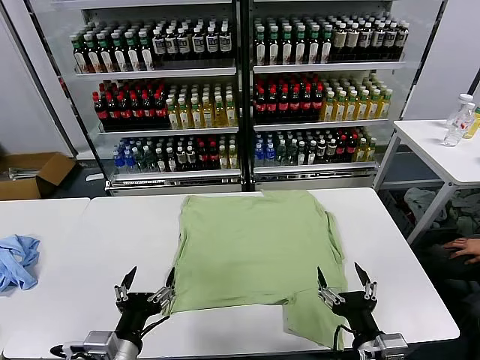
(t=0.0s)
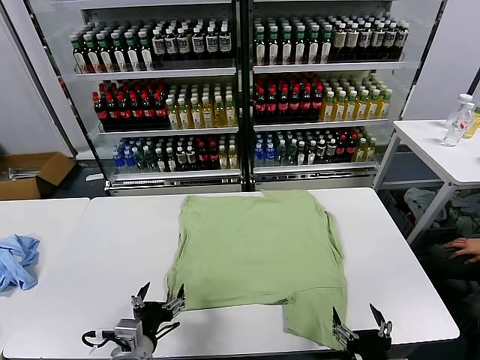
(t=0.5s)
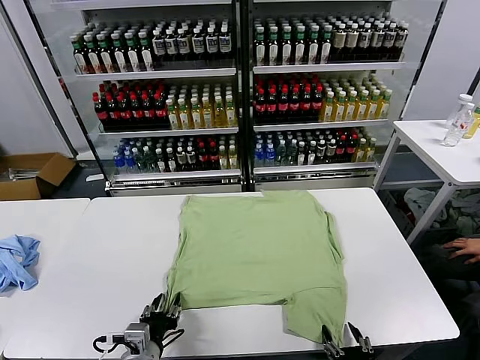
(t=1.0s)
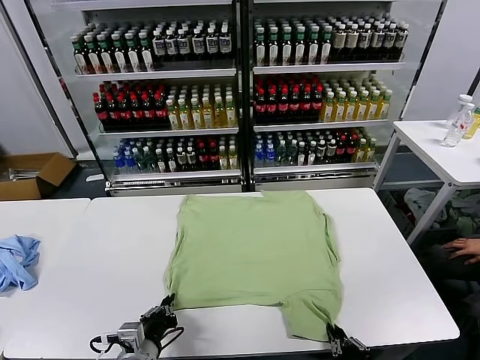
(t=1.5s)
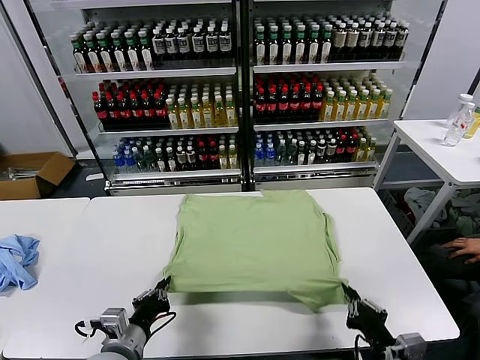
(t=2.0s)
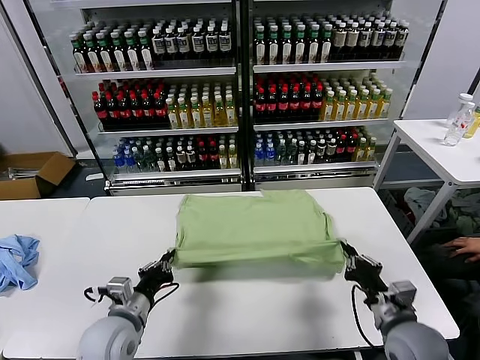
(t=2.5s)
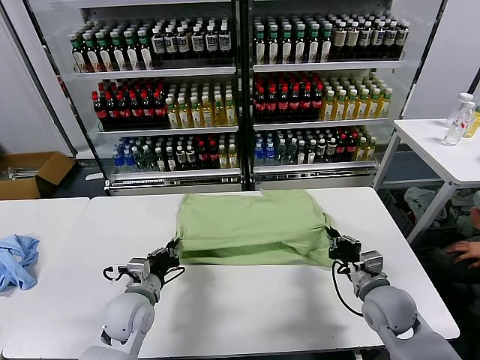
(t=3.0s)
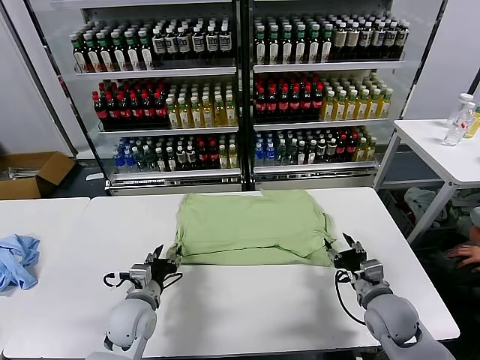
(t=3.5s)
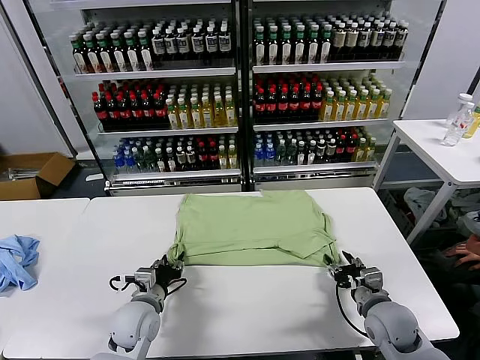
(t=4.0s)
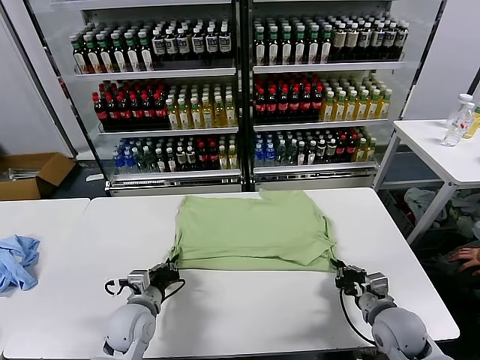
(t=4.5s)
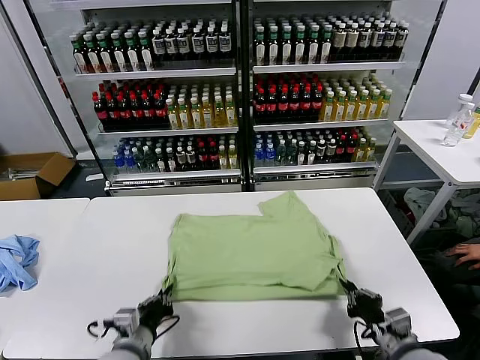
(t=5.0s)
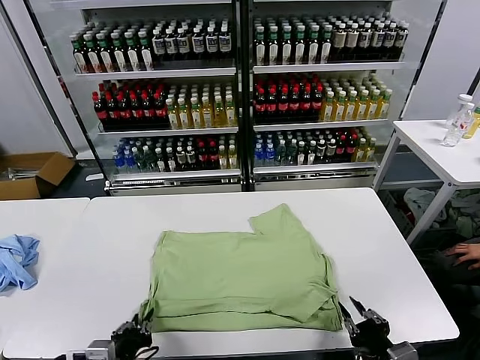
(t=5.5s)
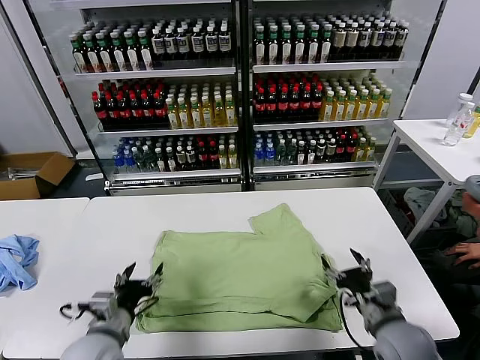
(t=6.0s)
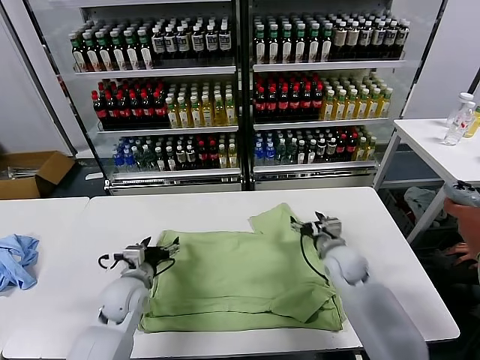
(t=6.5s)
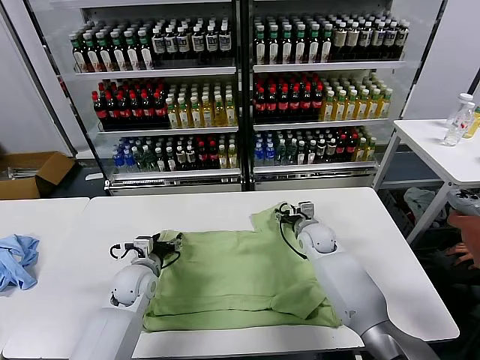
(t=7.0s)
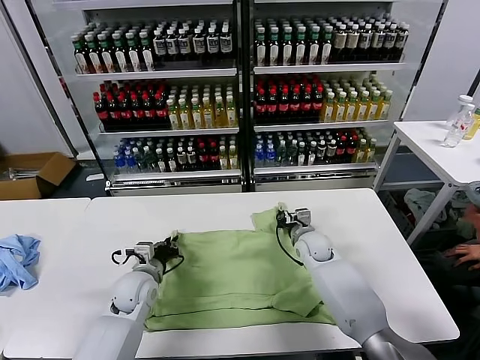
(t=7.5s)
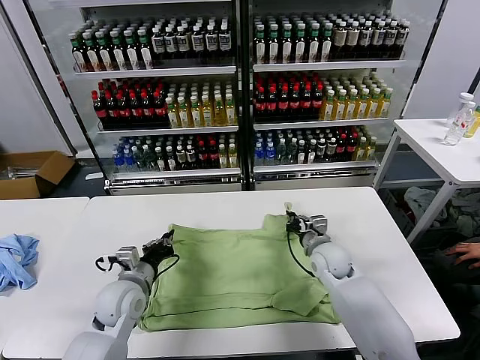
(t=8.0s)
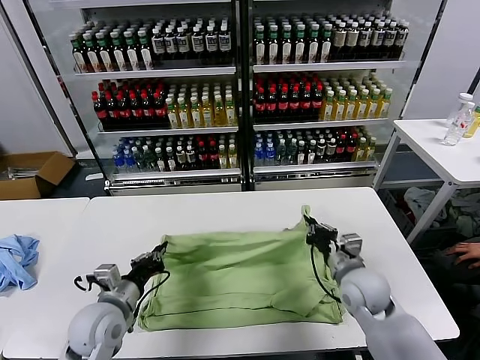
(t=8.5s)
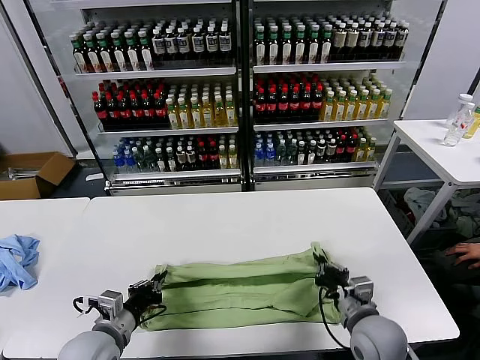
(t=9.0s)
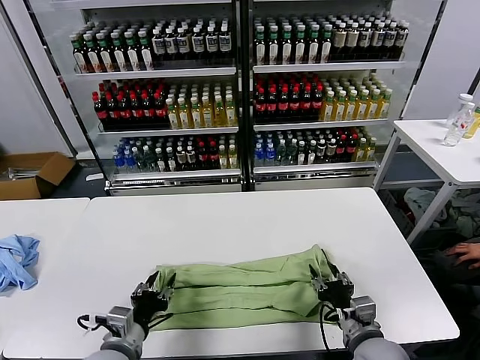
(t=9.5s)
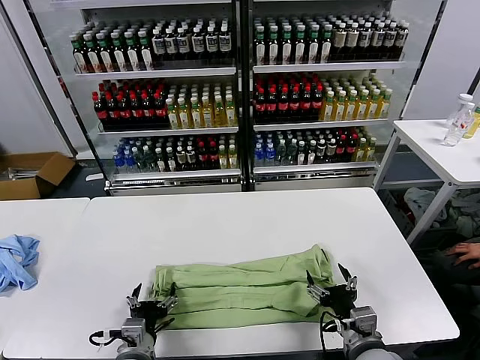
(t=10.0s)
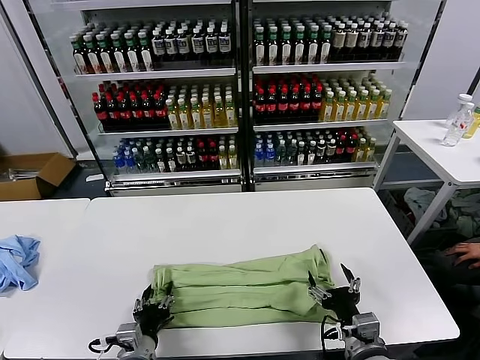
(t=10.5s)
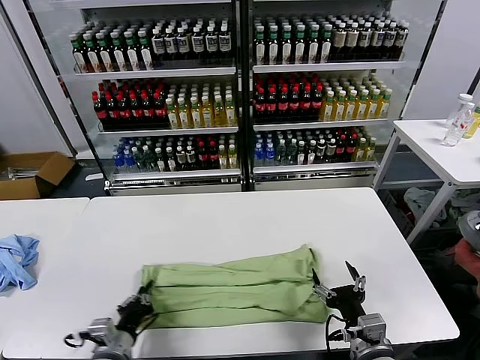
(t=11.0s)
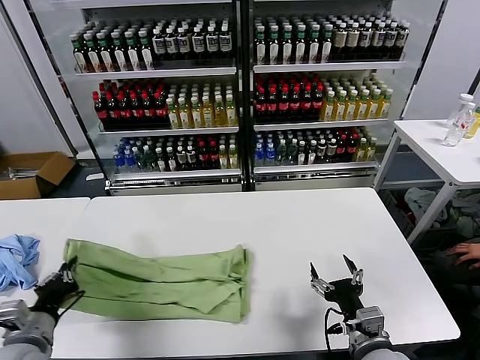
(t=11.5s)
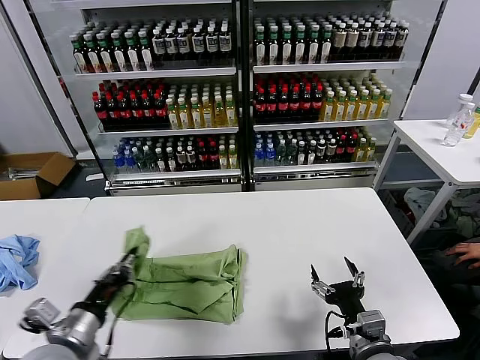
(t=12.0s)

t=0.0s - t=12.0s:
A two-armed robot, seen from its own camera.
Task of the whole recording: fold and organize the clothes.
Step, t=0.0s - t=1.5s: use both grippers simultaneously to clamp the lower edge of the clothing fabric.
Step, t=2.0s - t=3.0s: use both grippers to drag the lower edge of the fabric forward and fold it over the upper edge.
Step, t=3.5s - t=5.5s: Drag the clothes downward with both gripper.
Step, t=6.0s - t=7.5s: use both grippers simultaneously to clamp the upper edge of the clothing fabric.
Step, t=8.0s - t=9.0s: use both grippers to drag the upper edge of the fabric backward and fold it over the lower edge.
Step, t=10.0s - t=10.5s: use the left gripper to clamp the left edge of the fabric.
t=2.0s - t=4.0s: Both grippers move forward and downward, about 15 cm. The left gripper opens its fingers. Meanwhile the right gripper opens.
t=4.0s - t=6.0s: The right gripper reaches some 15 cm backward, then returns, and opens. Meanwhile the left gripper heads backward and upward, covering about 10 cm, and closes, then reopens.
t=6.0s - t=8.0s: The grippers both shift forward by about 15 cm. The left gripper closes its fingers, while the right gripper closes its fingers.
t=8.0s - t=10.0s: The right gripper is displaced backward by some 25 cm, and opens, while the left gripper shifts approximately 15 cm backward, and opens its fingers.
t=10.0s - t=12.0s: The left gripper heads upward and to the left, covering approximately 15 cm, and closes up.

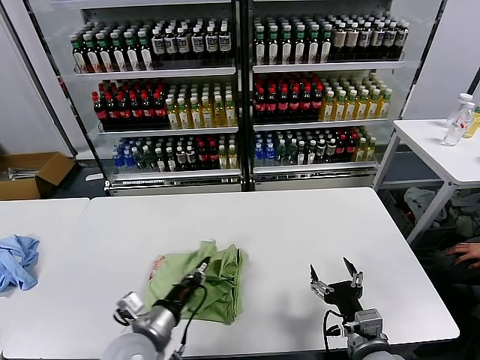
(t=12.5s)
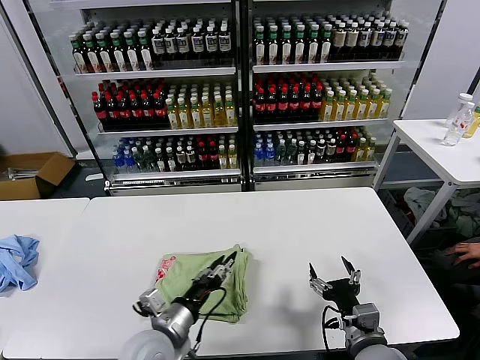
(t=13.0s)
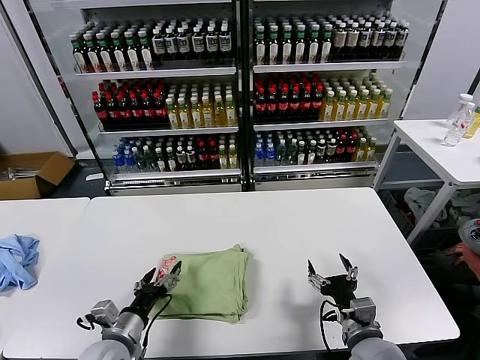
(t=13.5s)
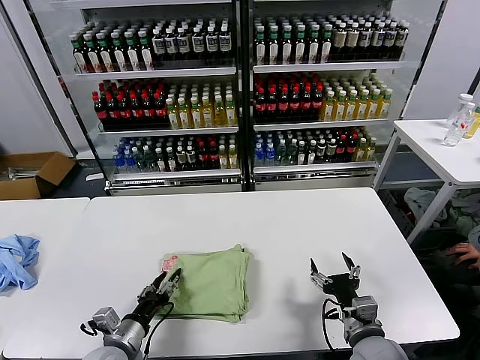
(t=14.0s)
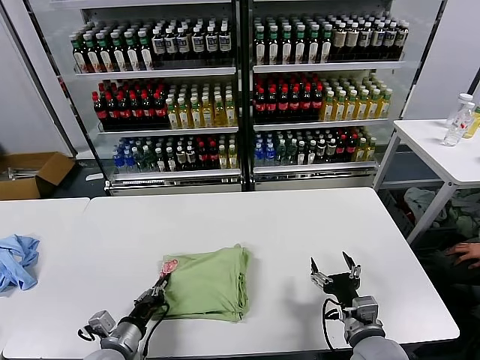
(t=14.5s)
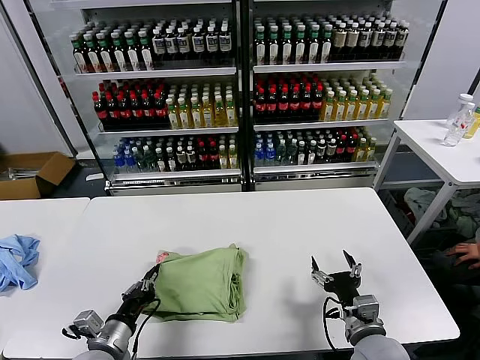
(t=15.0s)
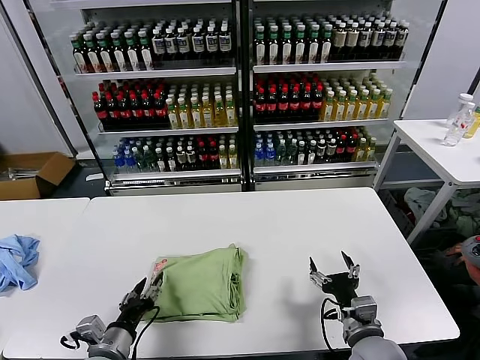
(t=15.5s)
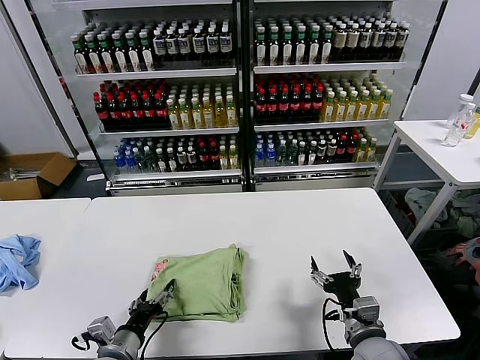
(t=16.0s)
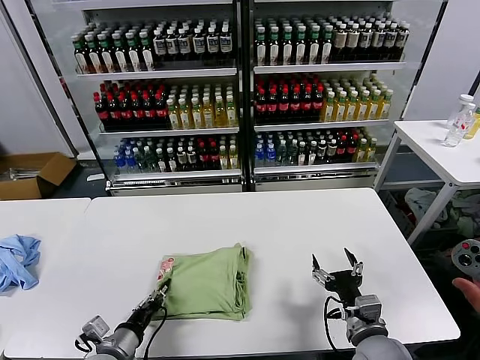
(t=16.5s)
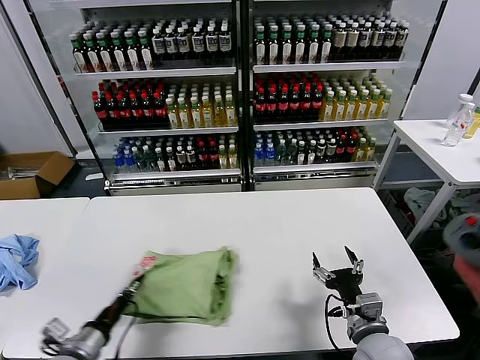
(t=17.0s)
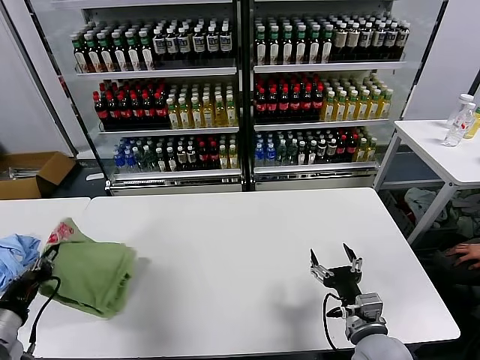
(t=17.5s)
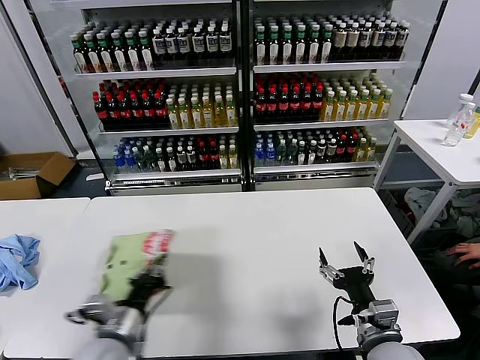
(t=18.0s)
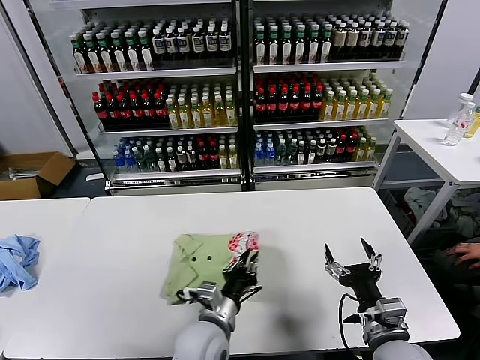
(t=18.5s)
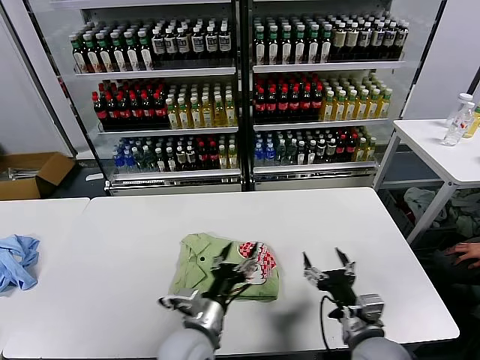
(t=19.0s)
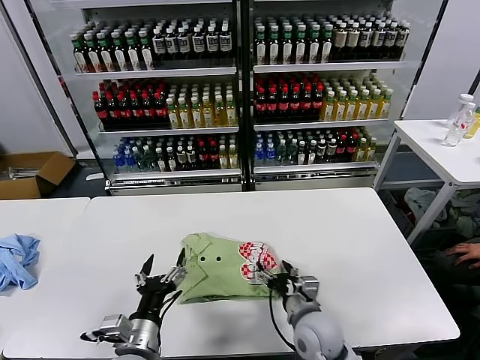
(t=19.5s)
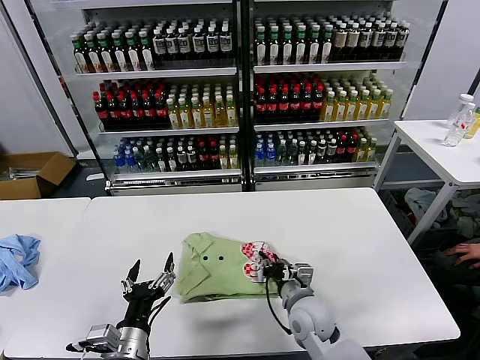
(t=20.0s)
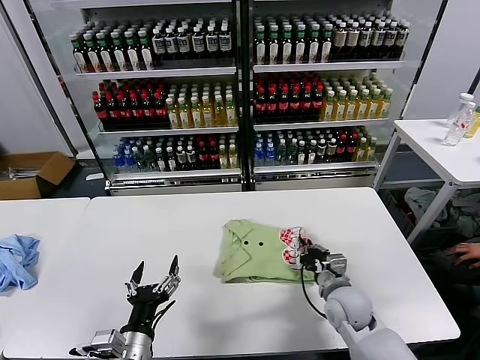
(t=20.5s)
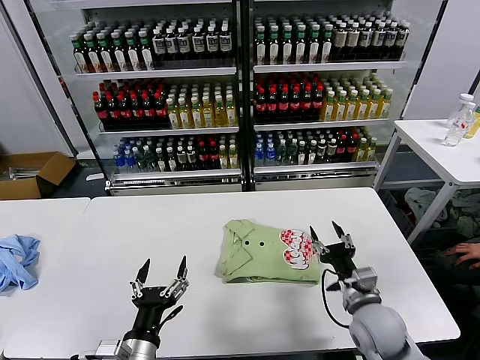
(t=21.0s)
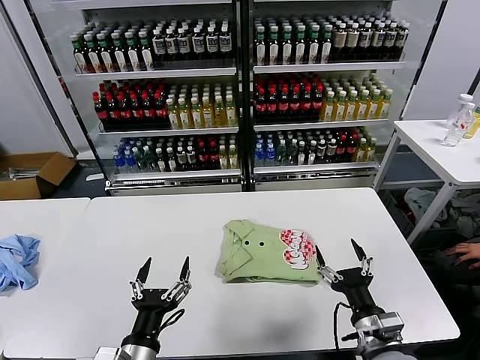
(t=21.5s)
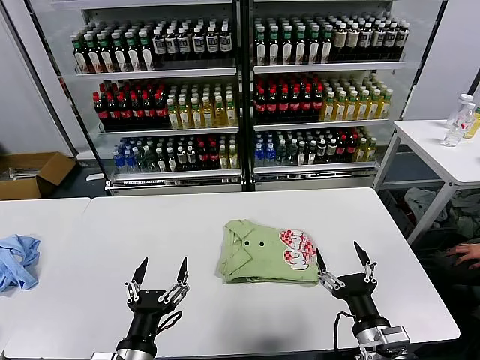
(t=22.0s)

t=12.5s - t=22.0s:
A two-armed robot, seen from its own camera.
Task of the whole recording: fold and organize the clothes.
Step, t=13.0s - t=18.5s: Flip the folded clothes over with left gripper.
Step, t=19.0s - t=20.5s: Drag the clothes to the center of the table.
t=12.5s - t=14.5s: The left gripper is displaced downward and to the left by approximately 10 cm, and opens, then closes again.
t=14.5s - t=16.5s: The left gripper opens, then closes again.
t=16.5s - t=18.0s: The left gripper shifts approximately 10 cm upward, and travels to the left and back again, about 15 cm each way.
t=18.0s - t=20.0s: The left gripper goes to the right and returns, some 20 cm each way, and opens up. Meanwhile the right gripper travels forward, to the left and downward by roughly 20 cm, and closes.
t=20.0s - t=22.0s: The right gripper is displaced backward, to the right and upward by about 20 cm, and opens up. The left gripper shifts by roughly 5 cm.

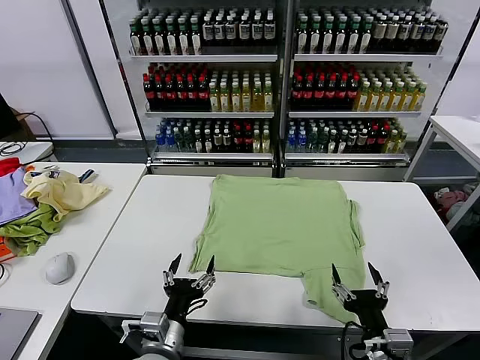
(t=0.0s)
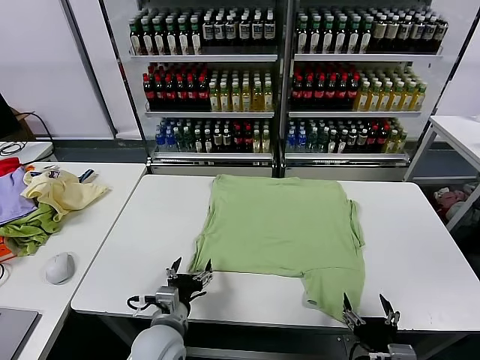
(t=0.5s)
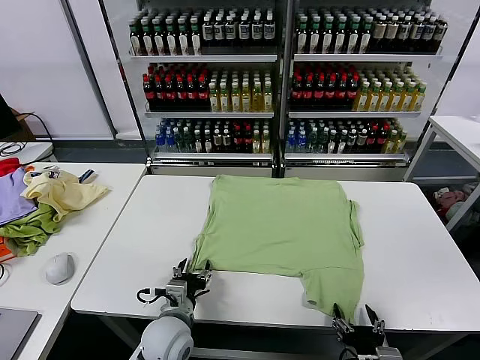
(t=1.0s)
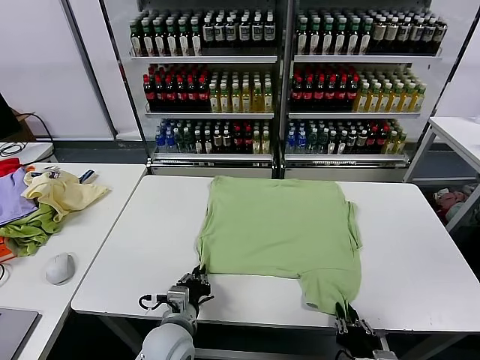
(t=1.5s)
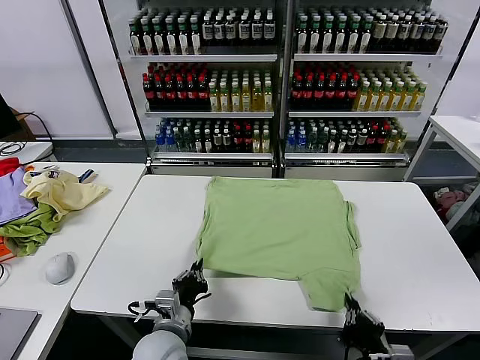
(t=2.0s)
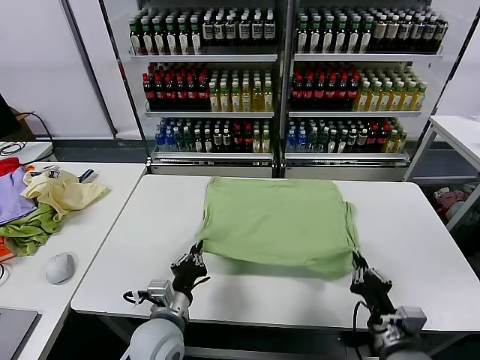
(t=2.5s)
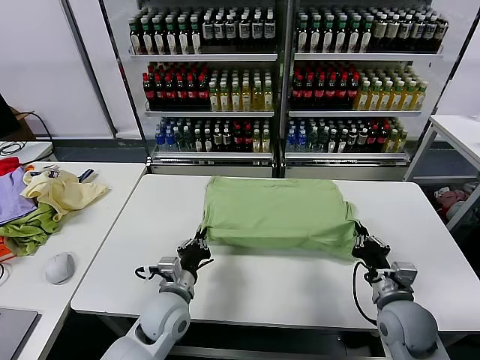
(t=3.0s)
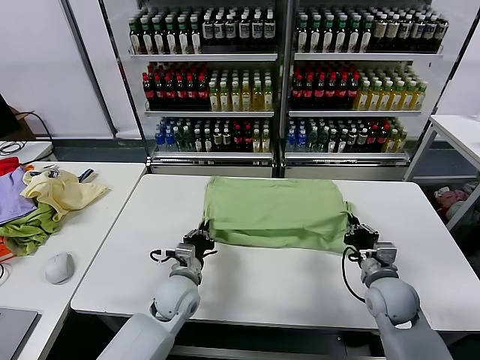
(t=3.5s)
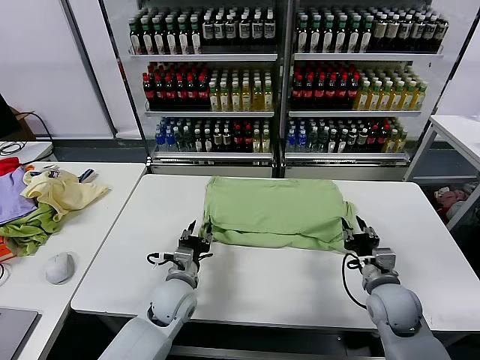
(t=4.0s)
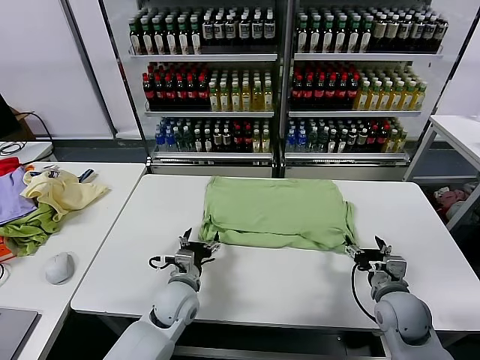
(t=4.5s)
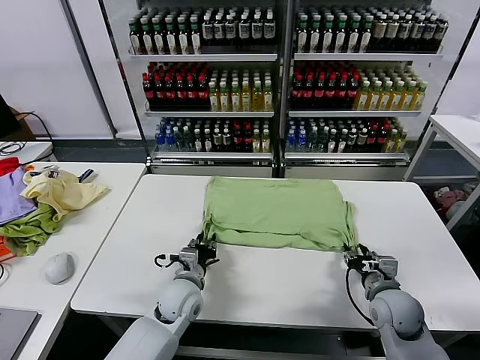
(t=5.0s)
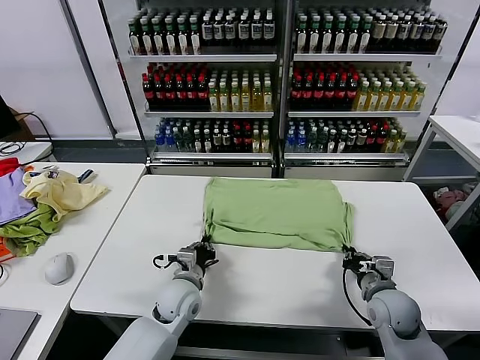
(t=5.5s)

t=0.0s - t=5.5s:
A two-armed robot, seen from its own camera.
Task of the whole recording: fold and organize the clothes.
Step, t=0.0s - t=1.5s: use both grippers simultaneously to clamp the lower edge of the clothing fabric.
Step, t=2.0s - t=3.5s: use both grippers to drag the lower edge of the fabric forward and fold it over the upper edge.
t=2.0s - t=3.5s: The right gripper travels forward by some 20 cm. Meanwhile the left gripper travels forward by roughly 15 cm.
t=3.5s - t=5.5s: The right gripper opens, then closes once more, while the left gripper opens, then closes once more.
